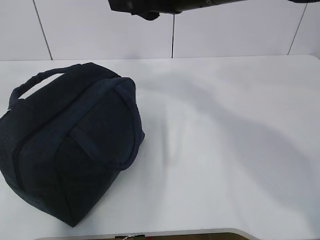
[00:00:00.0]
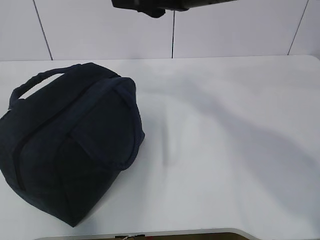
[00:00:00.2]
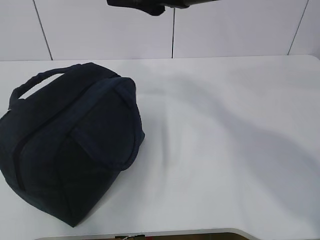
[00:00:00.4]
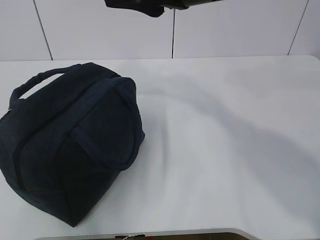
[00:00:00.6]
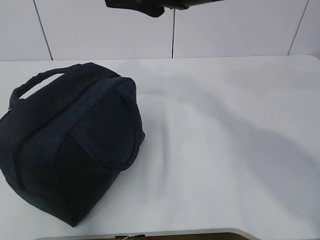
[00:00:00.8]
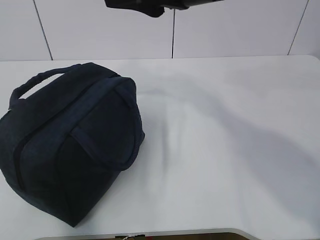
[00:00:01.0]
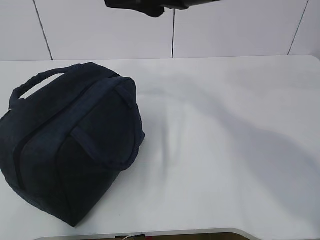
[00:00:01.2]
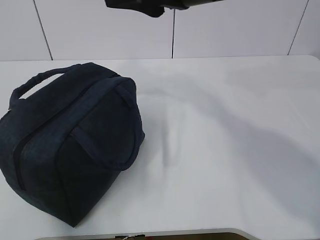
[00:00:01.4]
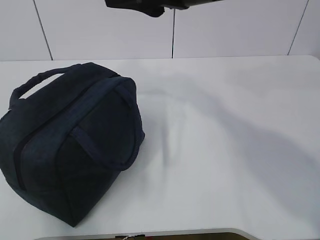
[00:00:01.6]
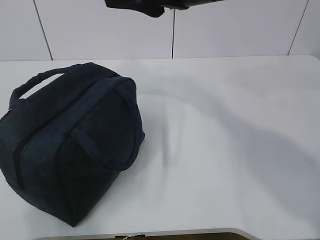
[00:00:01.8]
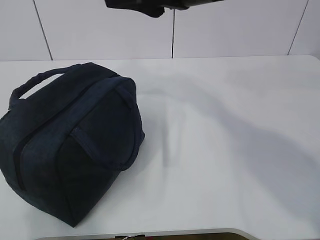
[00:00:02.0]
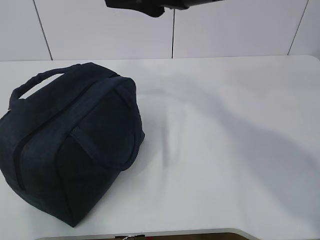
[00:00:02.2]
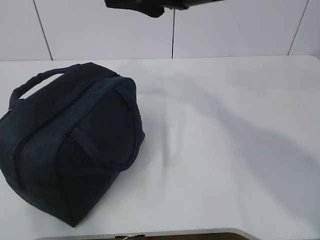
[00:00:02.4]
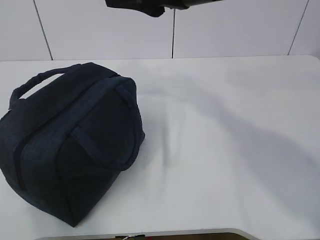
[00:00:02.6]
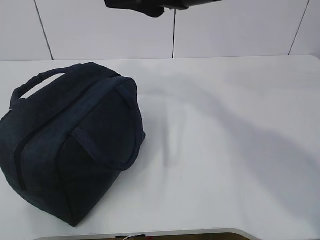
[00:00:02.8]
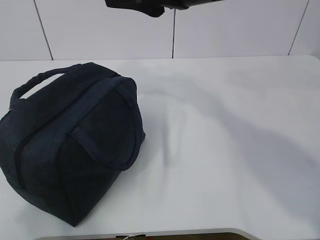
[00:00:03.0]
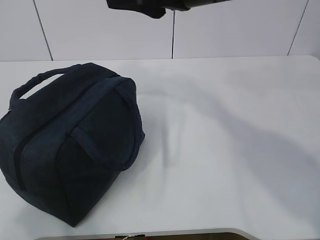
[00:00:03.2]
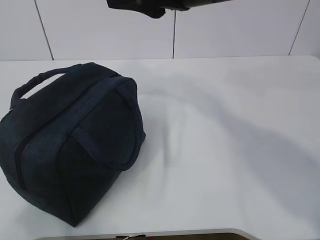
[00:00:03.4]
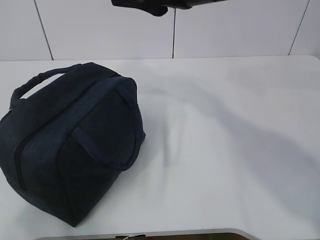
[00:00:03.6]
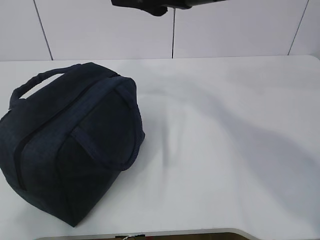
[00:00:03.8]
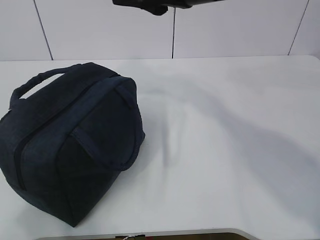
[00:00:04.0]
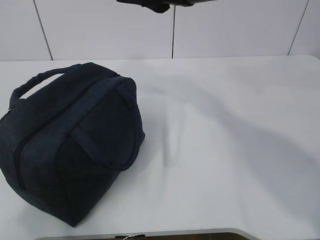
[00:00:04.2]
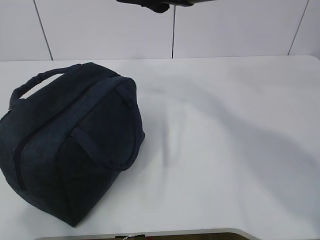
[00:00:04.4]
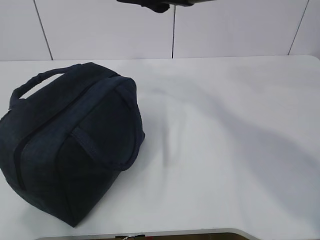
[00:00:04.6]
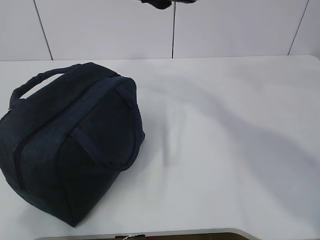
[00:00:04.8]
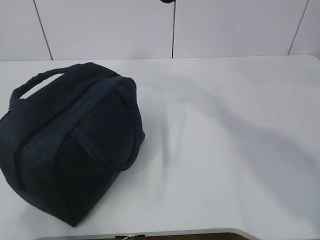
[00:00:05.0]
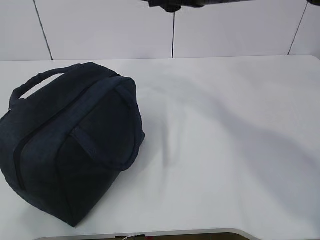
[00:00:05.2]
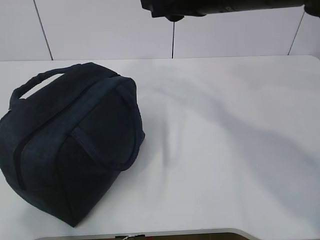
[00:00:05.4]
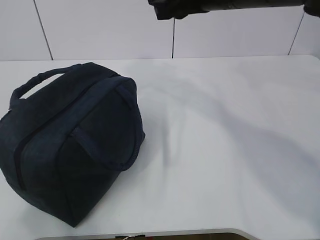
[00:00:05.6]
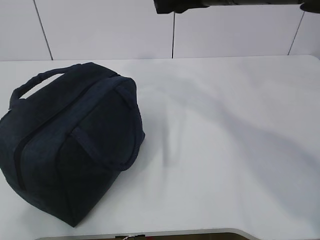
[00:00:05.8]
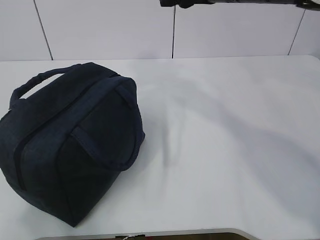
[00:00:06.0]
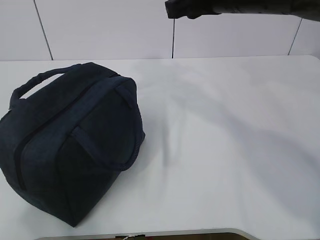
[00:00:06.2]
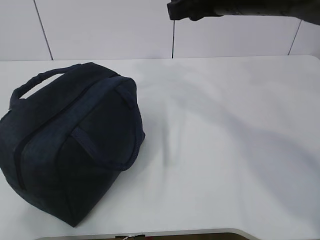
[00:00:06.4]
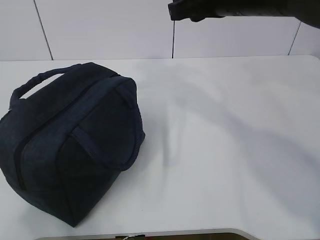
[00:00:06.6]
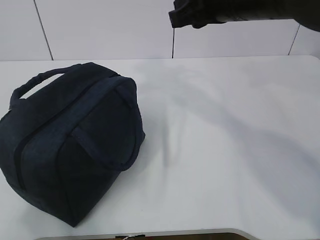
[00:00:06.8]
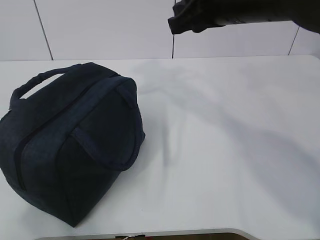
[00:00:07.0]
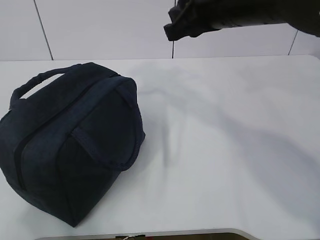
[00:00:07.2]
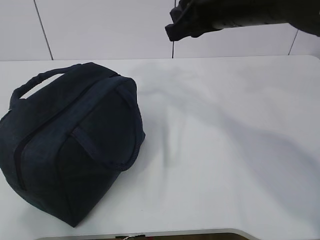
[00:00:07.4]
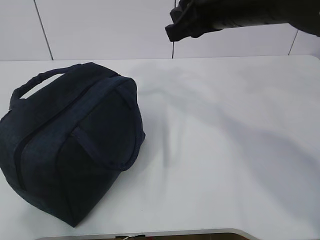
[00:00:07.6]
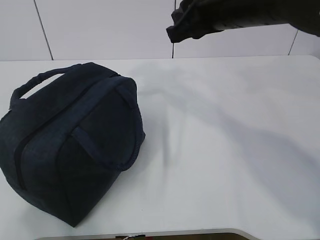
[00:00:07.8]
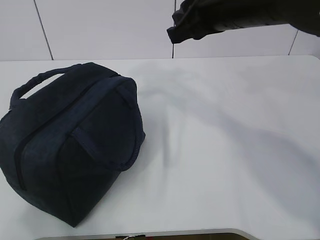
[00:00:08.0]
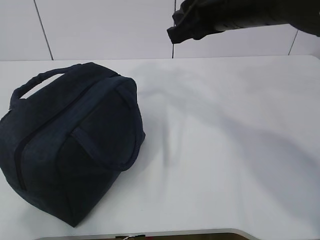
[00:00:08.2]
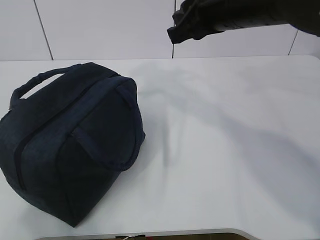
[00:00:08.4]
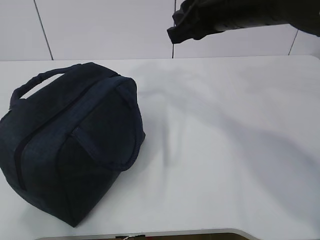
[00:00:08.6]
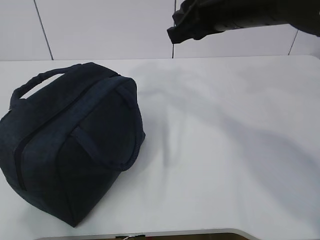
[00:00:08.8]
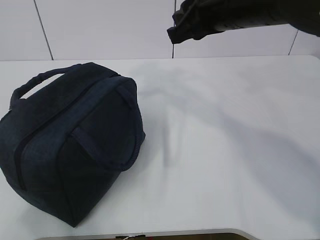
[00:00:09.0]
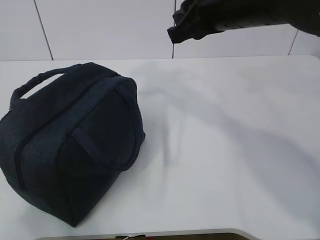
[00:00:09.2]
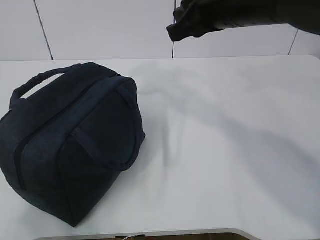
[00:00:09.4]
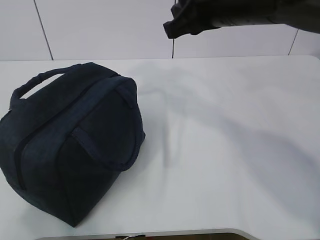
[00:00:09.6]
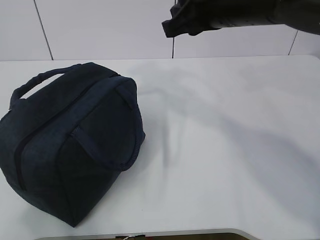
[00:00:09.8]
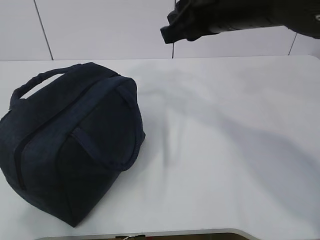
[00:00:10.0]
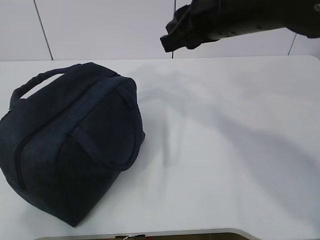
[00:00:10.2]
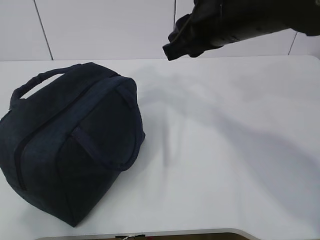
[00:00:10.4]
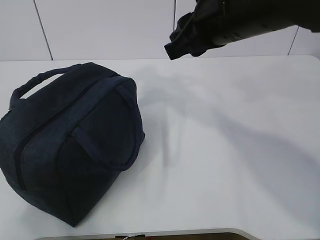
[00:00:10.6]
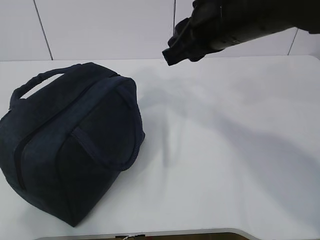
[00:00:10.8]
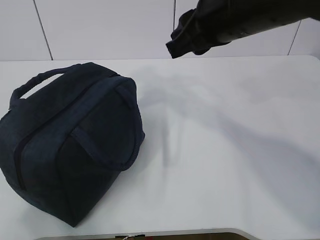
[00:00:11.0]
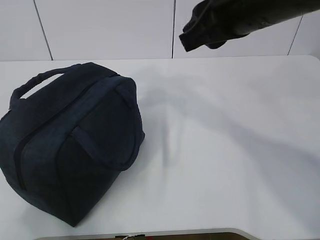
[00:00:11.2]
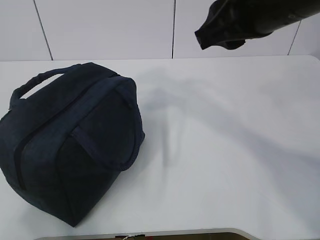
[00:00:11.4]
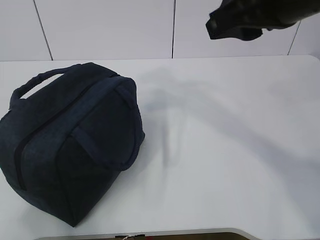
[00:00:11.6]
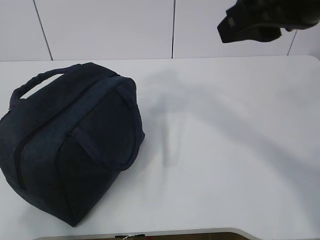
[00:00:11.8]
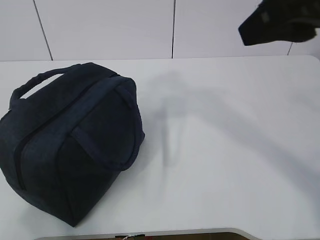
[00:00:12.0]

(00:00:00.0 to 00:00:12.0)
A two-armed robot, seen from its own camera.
00:00:00.0 - 00:00:01.6: The left gripper moves backward and downward, roughly 25 cm.
00:00:03.0 - 00:00:04.4: The grippers stay close to where they were, moving slightly.
00:00:06.0 - 00:00:07.6: The grippers make only small movements.
00:00:07.6 - 00:00:09.0: Both grippers stay about where they are.
00:00:09.0 - 00:00:10.4: The grippers move only a little.
00:00:10.4 - 00:00:12.0: The right gripper shifts approximately 15 cm backward, upward and to the right.

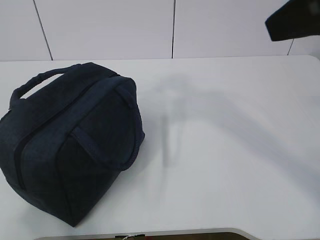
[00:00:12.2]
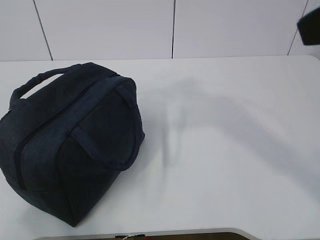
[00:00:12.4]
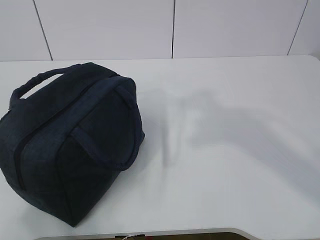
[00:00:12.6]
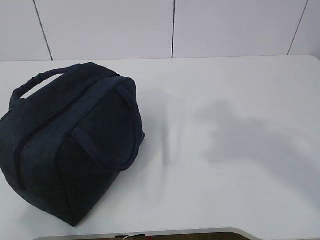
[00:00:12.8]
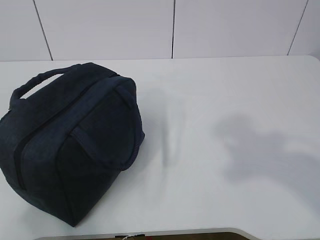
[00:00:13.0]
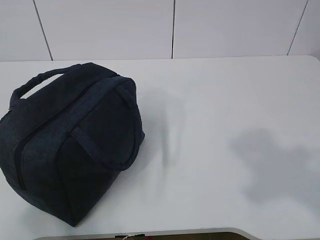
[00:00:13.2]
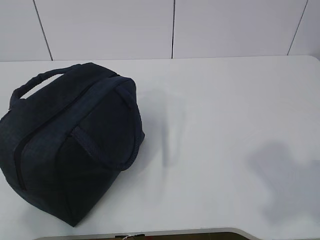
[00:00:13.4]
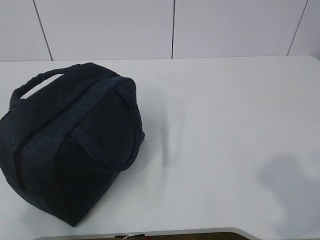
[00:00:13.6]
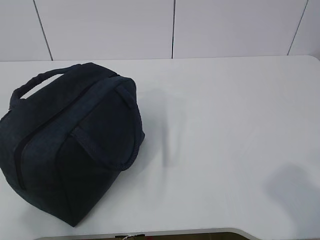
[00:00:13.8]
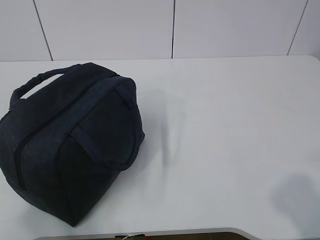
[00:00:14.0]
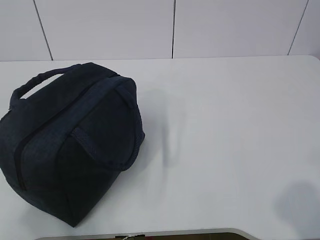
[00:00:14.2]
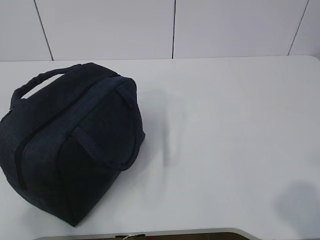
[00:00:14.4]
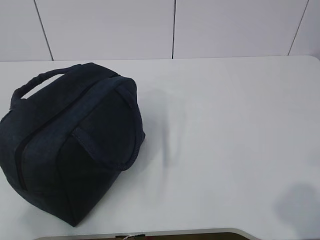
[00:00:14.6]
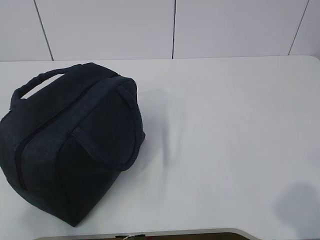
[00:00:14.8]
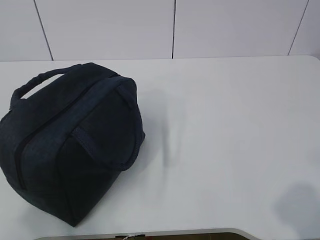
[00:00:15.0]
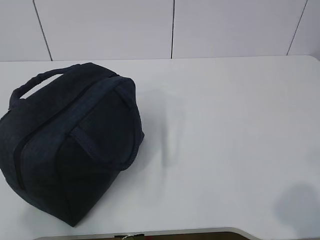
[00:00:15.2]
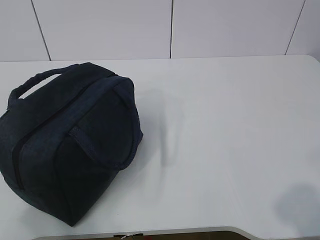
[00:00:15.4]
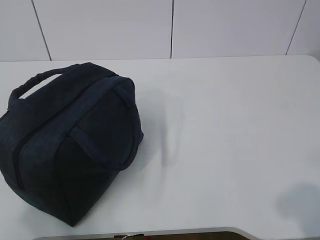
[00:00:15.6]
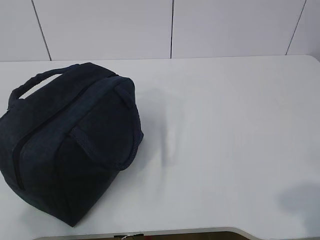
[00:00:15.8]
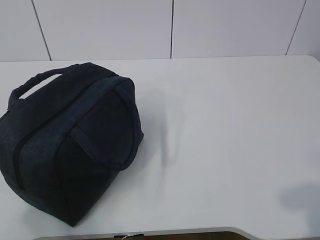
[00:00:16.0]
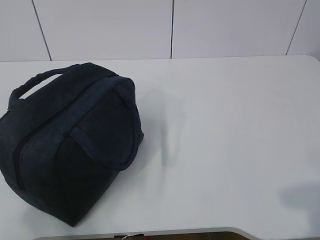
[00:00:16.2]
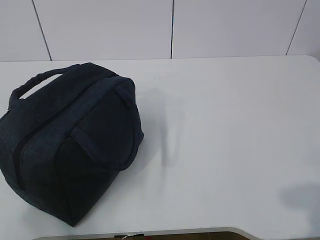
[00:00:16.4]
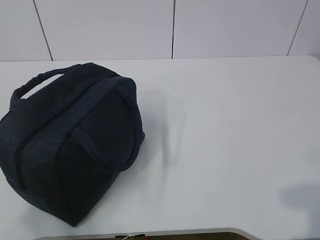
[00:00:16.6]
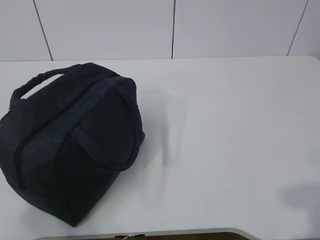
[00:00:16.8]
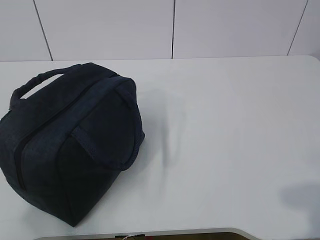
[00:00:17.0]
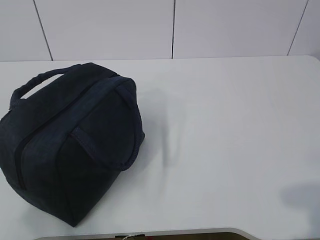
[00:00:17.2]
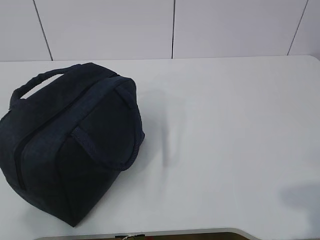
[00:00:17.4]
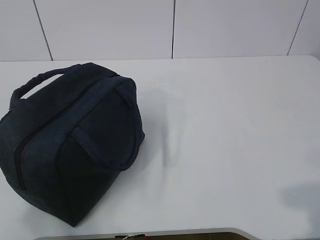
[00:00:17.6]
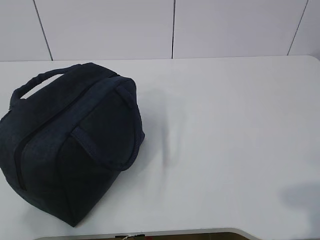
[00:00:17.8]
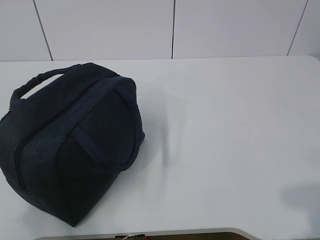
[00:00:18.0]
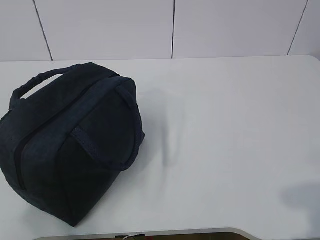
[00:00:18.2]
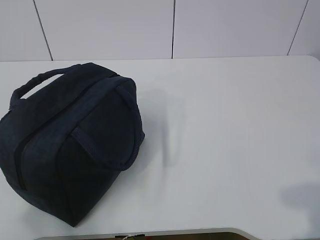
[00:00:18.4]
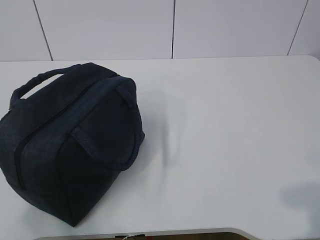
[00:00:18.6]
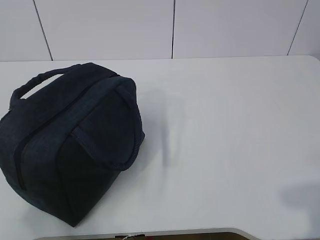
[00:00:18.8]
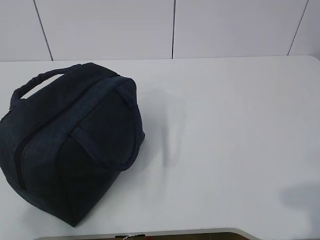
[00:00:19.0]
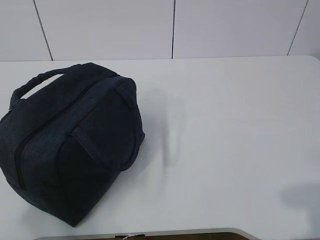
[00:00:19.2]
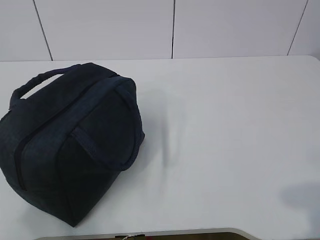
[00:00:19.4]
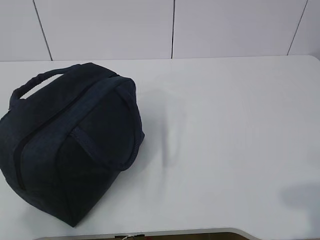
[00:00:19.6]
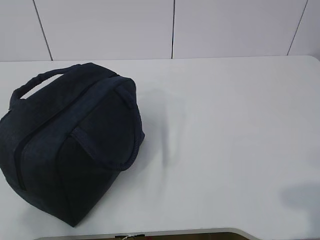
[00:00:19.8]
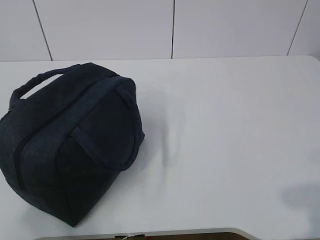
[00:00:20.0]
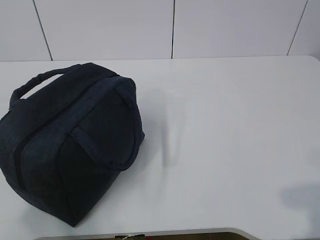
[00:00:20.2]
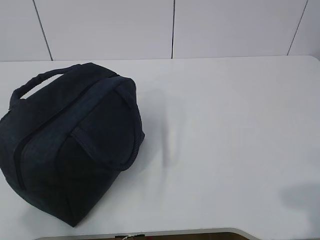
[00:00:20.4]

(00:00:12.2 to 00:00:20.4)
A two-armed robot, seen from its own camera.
00:00:12.2 - 00:00:13.8: The right gripper travels backward, to the right and downward by roughly 25 cm.
00:00:13.8 - 00:00:15.4: The right gripper travels downward by some 5 cm.
00:00:17.2 - 00:00:20.4: Both grippers stay put.
